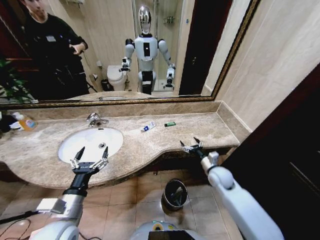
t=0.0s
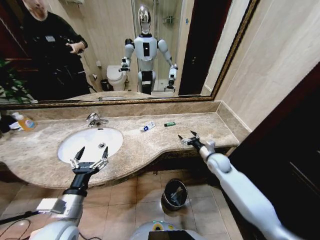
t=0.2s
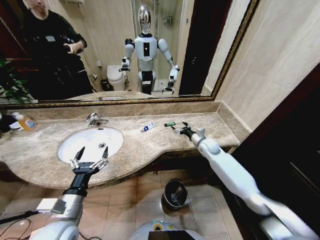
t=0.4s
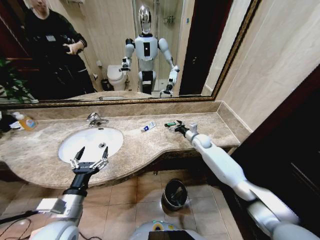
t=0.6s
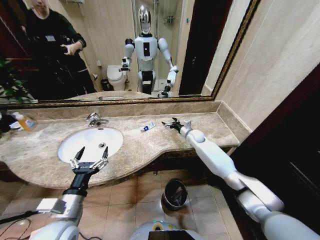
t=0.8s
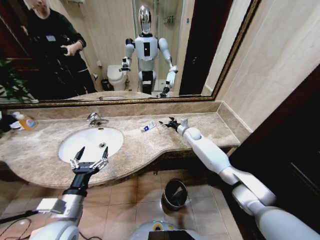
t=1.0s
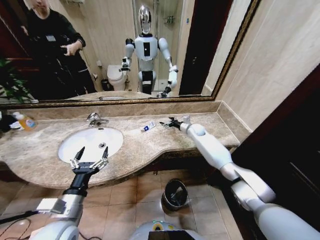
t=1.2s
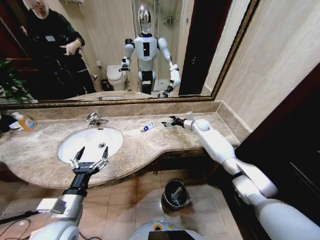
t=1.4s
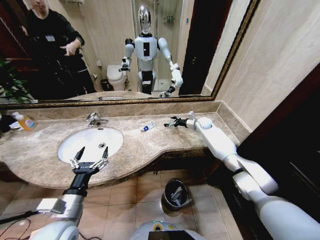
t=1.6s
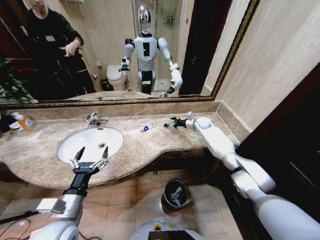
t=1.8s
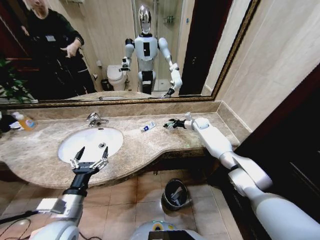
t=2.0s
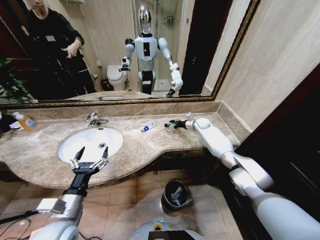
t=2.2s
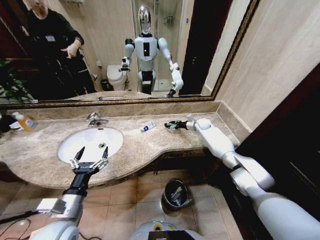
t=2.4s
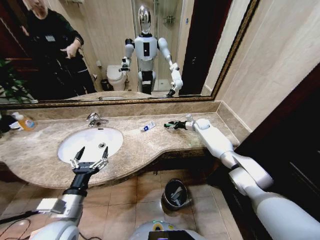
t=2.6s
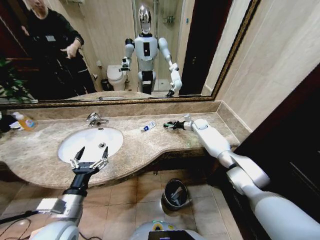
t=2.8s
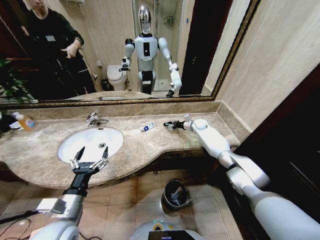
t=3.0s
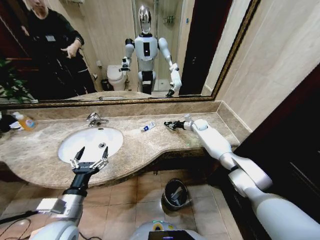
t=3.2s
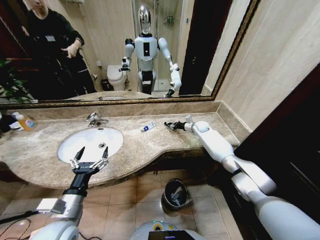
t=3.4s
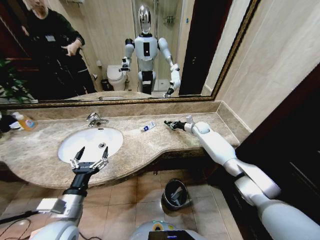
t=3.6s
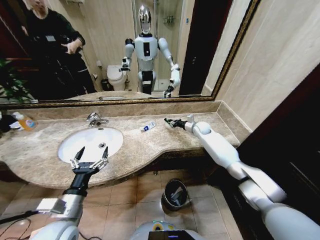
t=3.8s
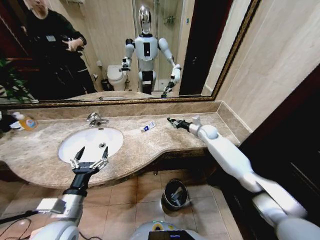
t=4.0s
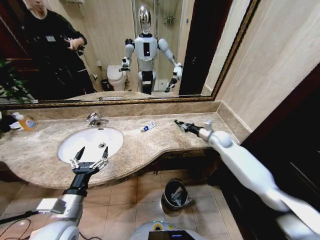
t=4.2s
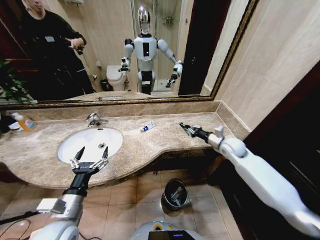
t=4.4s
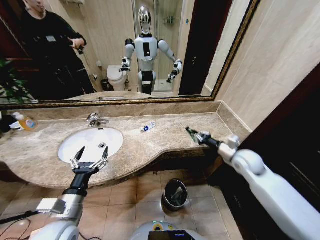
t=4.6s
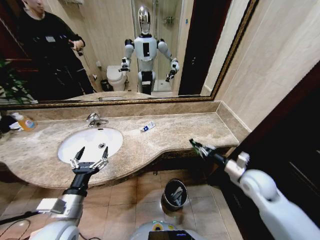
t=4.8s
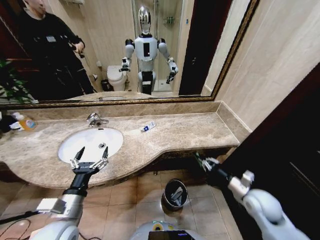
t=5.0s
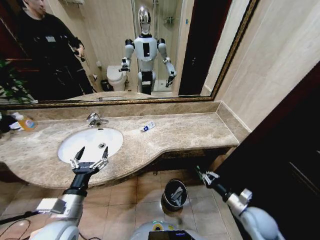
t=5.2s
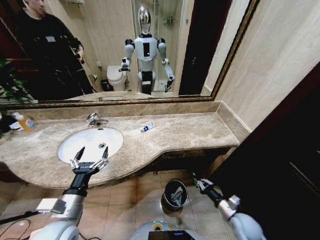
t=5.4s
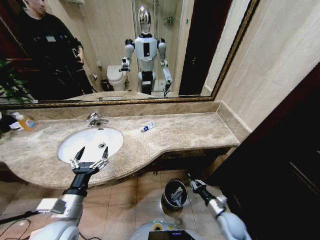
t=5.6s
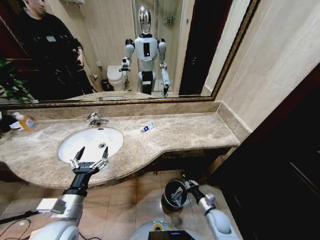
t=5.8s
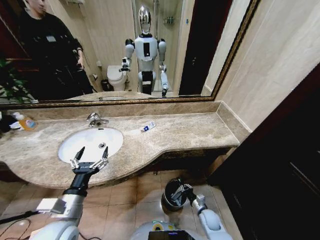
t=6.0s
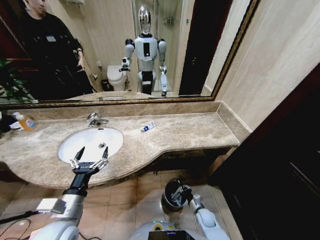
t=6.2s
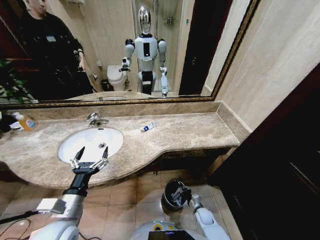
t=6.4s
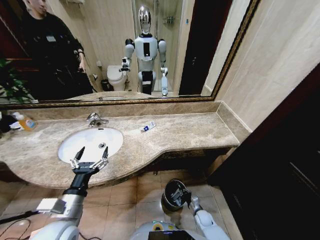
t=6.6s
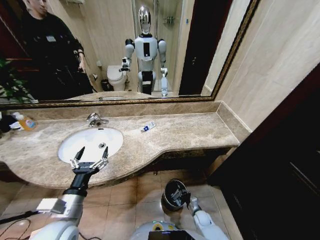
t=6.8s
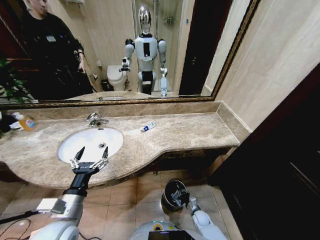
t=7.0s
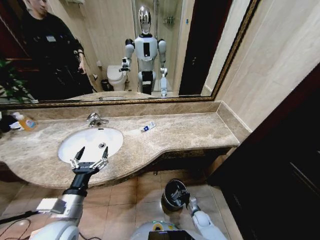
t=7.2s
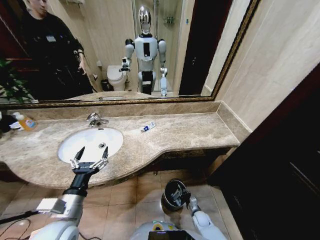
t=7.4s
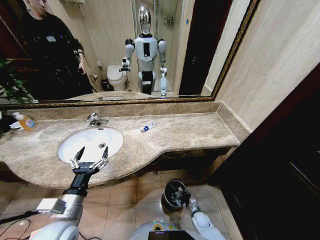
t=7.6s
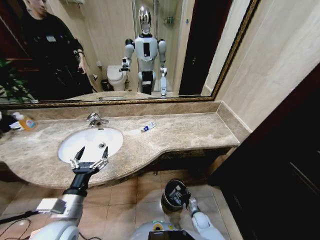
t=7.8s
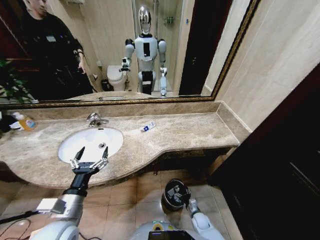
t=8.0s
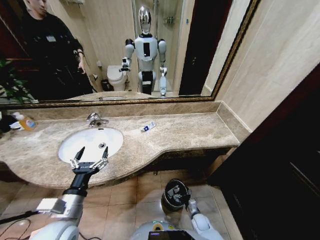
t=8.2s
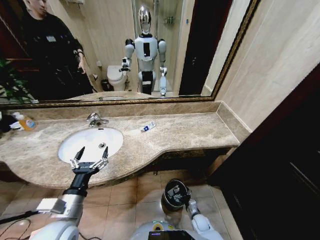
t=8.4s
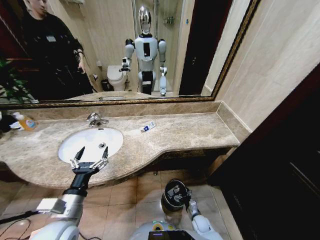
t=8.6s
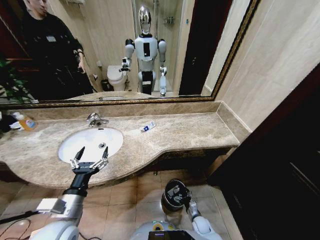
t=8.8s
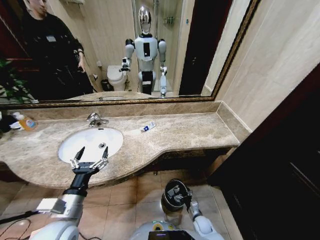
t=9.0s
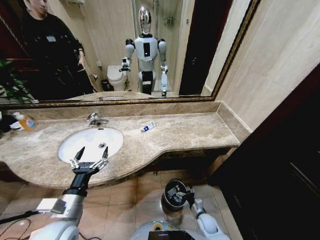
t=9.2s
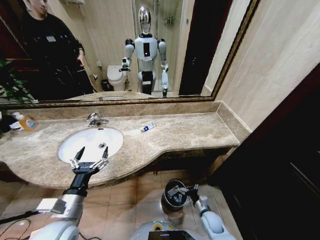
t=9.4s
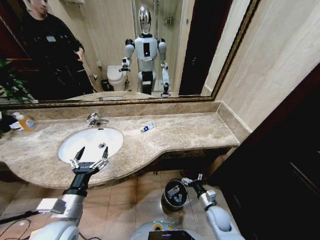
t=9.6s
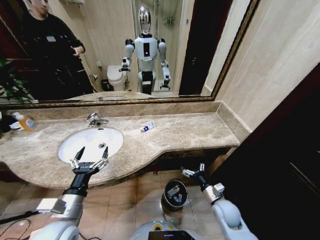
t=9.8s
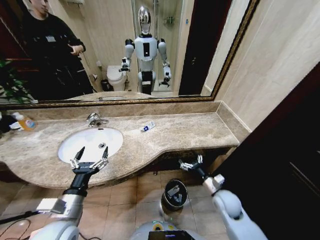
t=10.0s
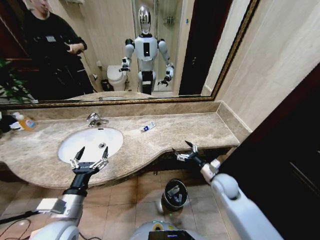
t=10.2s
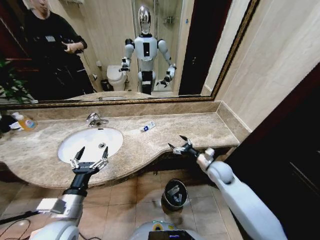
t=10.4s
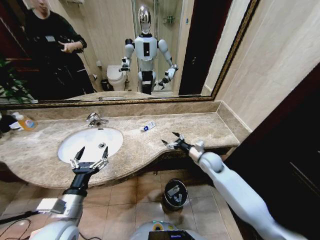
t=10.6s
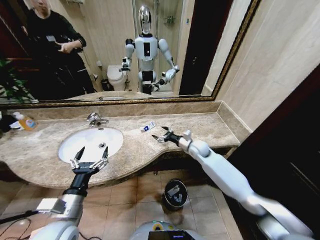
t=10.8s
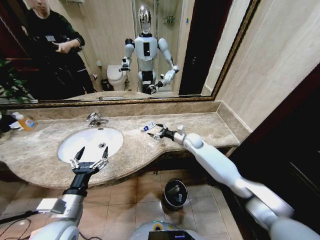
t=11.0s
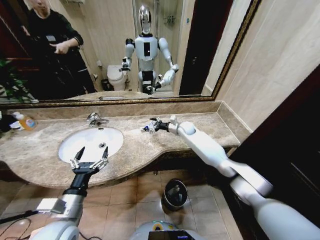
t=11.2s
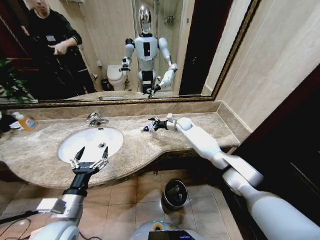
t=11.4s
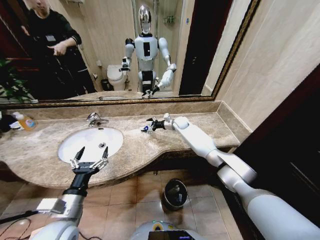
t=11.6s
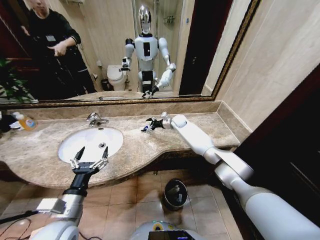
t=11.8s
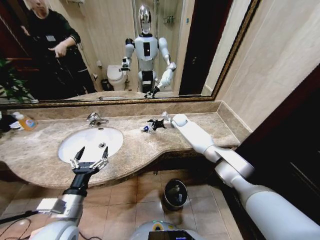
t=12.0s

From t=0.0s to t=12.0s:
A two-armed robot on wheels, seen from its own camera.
Task of the whole recording: Pick up the trash from the sink and place it in the trash bin.
From t=0.0s to t=1.6s: The right gripper goes some 30 cm forward.
From t=1.6s to t=3.0s: The right gripper closes up.
From t=3.0s to t=4.4s: The right gripper heads backward, covering some 25 cm.
From t=4.4s to t=6.0s: The right gripper is displaced downward and backward by about 40 cm.
From t=6.0s to t=7.6s: The right gripper heads downward, covering approximately 10 cm.
From t=7.6s to t=9.0s: The right gripper opens up.
From t=9.0s to t=10.4s: The right gripper goes roughly 35 cm upward and forward.
From t=10.4s to t=12.0s: The right gripper is displaced forward and to the left by some 35 cm.

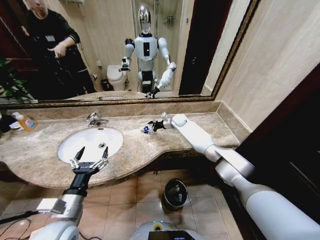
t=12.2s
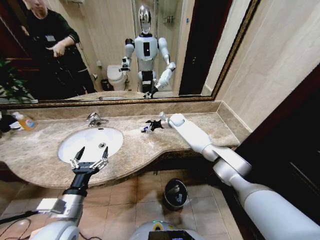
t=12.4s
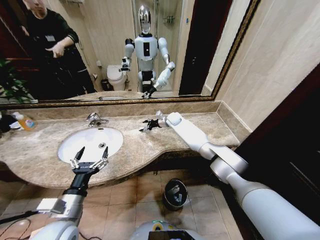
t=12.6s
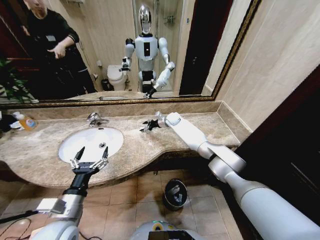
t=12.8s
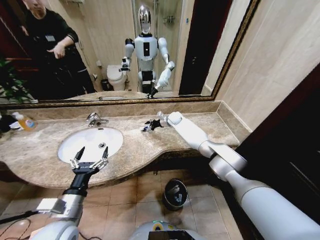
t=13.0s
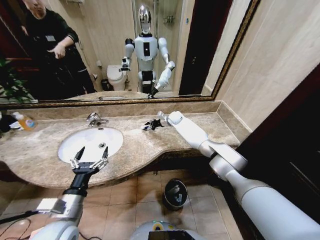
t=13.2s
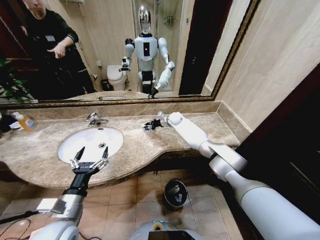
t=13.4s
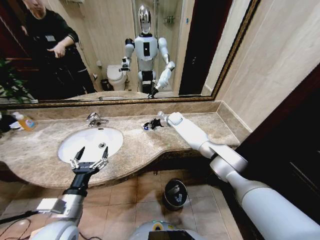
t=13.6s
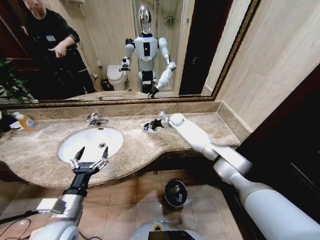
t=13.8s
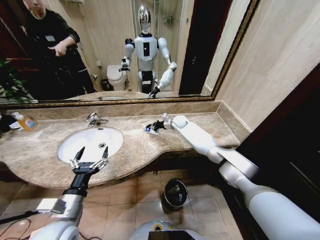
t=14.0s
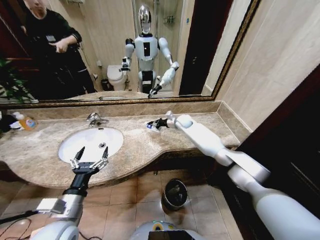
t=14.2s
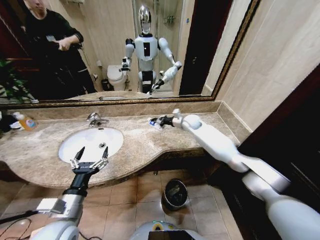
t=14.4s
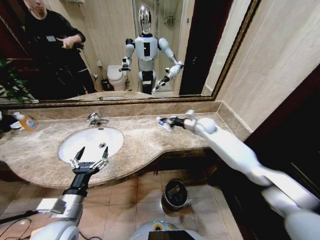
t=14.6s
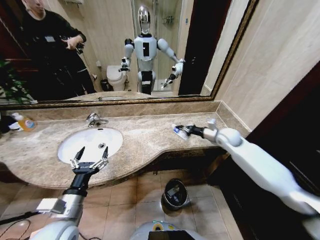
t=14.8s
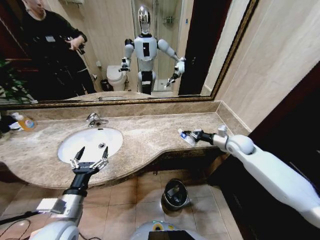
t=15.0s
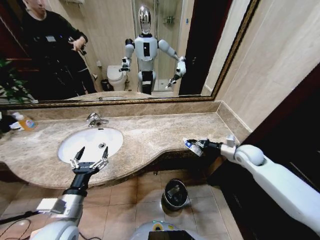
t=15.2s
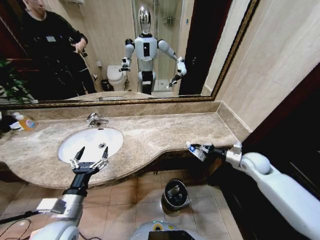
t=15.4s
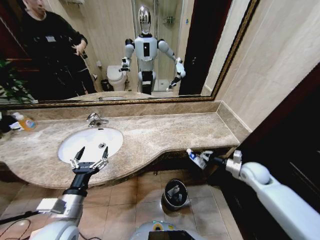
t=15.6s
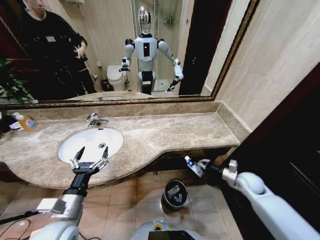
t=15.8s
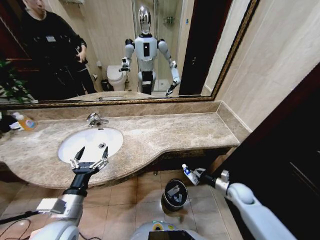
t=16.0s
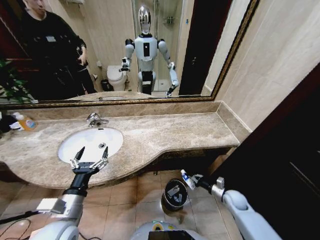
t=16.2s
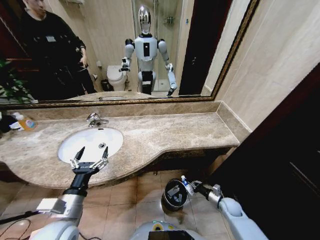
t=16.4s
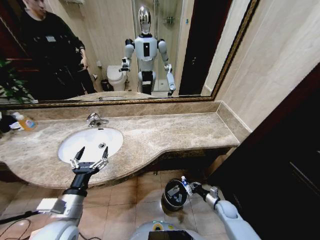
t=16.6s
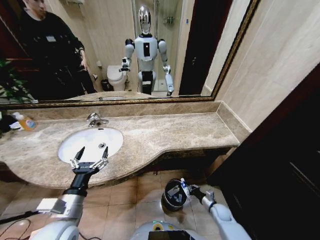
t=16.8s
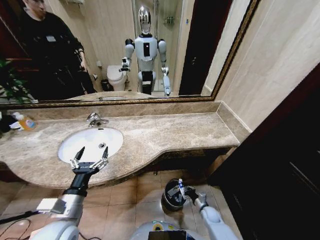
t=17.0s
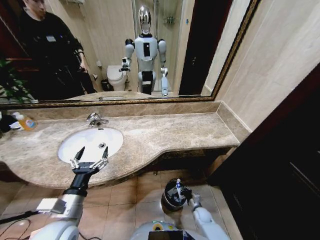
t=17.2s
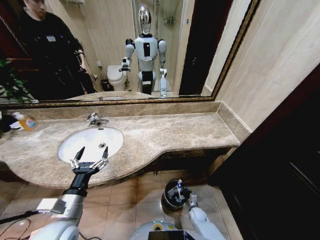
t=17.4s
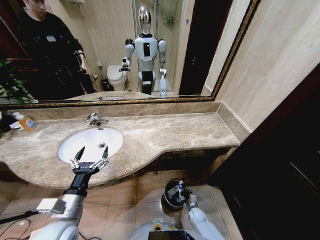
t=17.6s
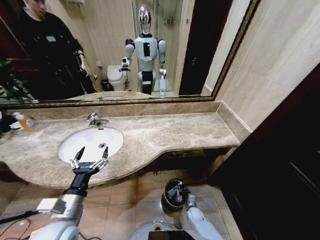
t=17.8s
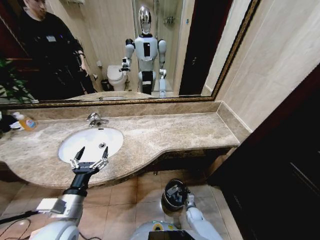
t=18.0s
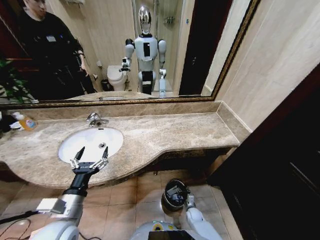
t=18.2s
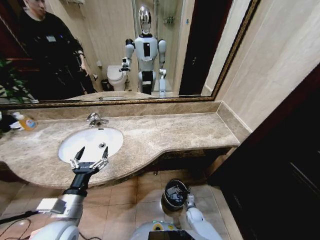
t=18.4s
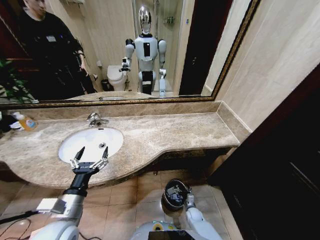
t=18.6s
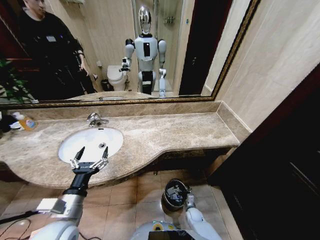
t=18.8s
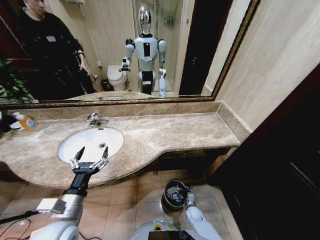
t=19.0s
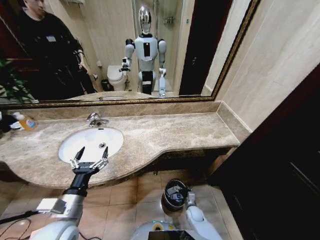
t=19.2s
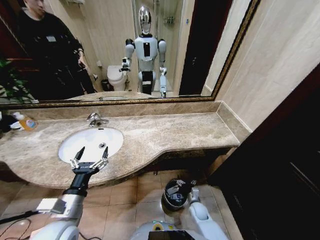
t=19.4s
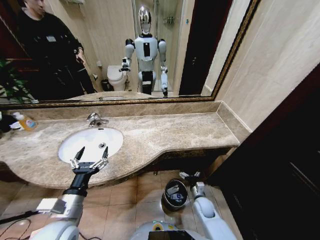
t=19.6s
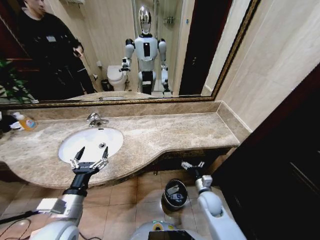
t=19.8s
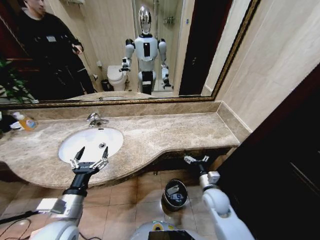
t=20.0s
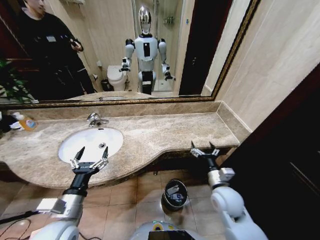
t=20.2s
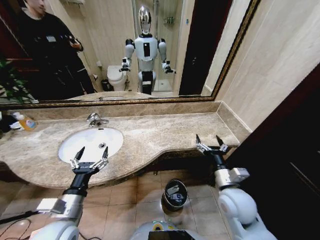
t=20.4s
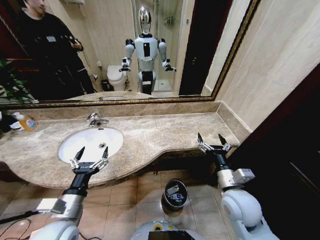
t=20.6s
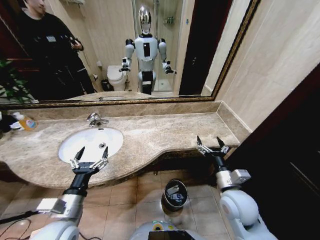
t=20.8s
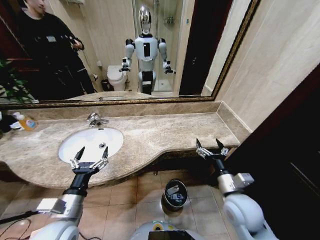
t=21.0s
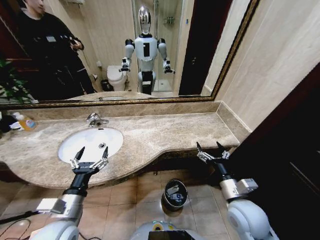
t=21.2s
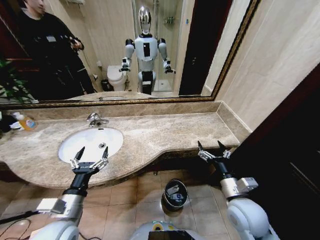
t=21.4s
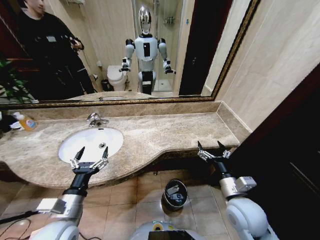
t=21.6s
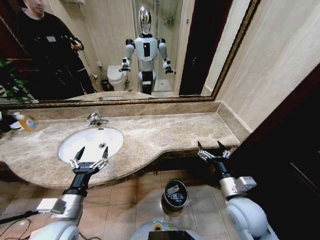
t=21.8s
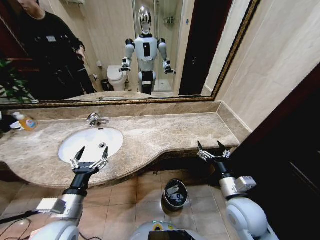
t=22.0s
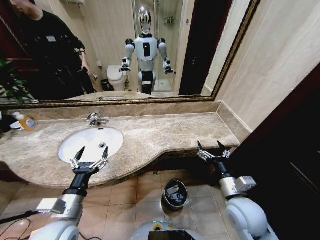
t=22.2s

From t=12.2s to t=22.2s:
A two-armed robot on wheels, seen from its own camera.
Task of the whole recording: Pick up the trash from the sink and place it in the trash bin.
From t=12.2s to t=13.6s: The right gripper closes.
From t=13.6s to t=15.0s: The right gripper is displaced to the right and backward by approximately 35 cm.
From t=15.0s to t=16.4s: The right gripper moves downward and backward, roughly 35 cm.
From t=16.4s to t=18.0s: The right gripper travels to the left and downward by roughly 20 cm.
From t=18.0s to t=19.4s: The right gripper heads upward, covering about 10 cm, and opens.
From t=19.4s to t=20.8s: The right gripper heads upward, covering roughly 35 cm.
From t=20.8s to t=22.2s: The grippers stay close to where they were, moving slightly.
